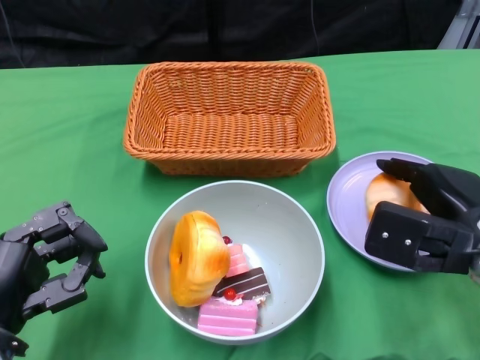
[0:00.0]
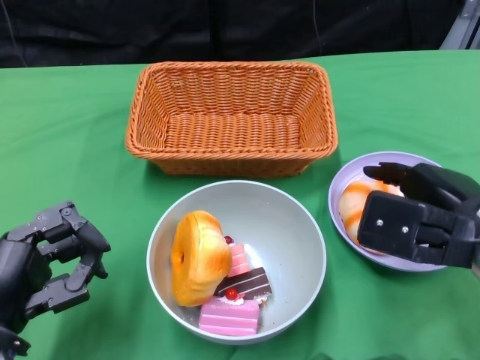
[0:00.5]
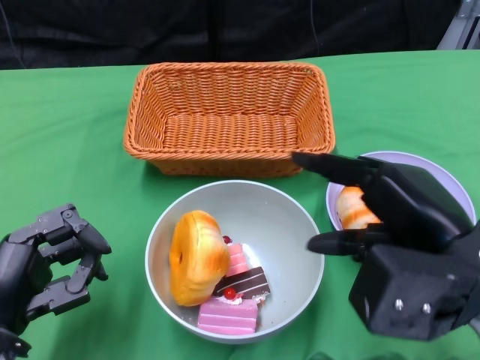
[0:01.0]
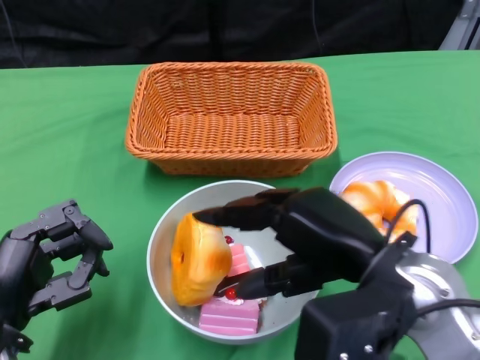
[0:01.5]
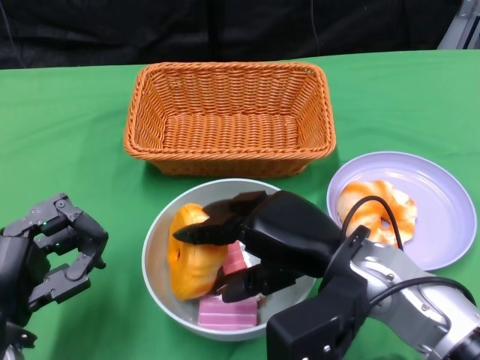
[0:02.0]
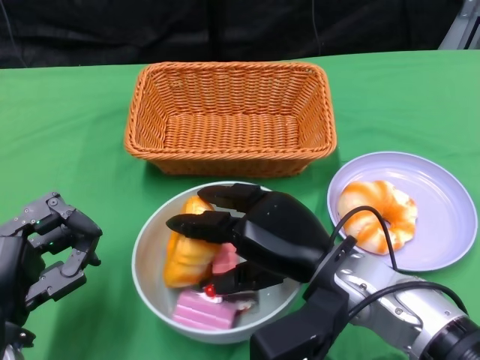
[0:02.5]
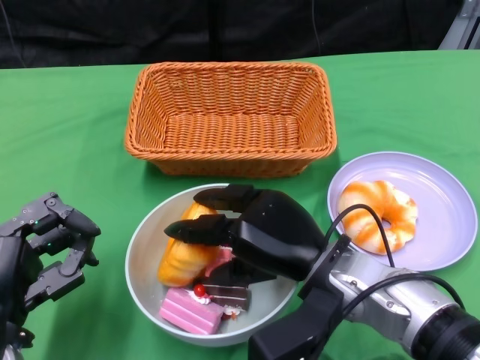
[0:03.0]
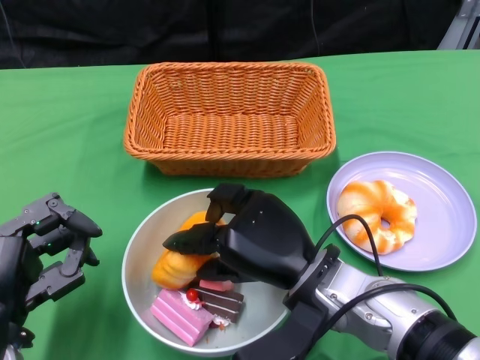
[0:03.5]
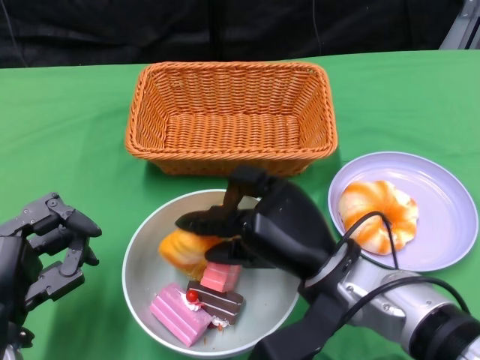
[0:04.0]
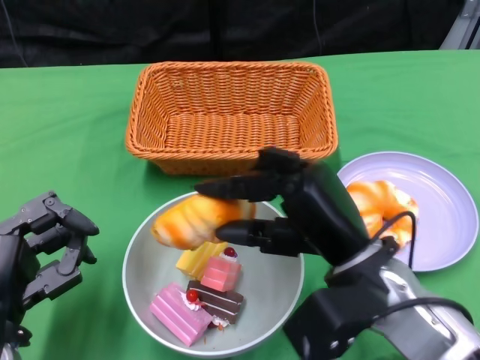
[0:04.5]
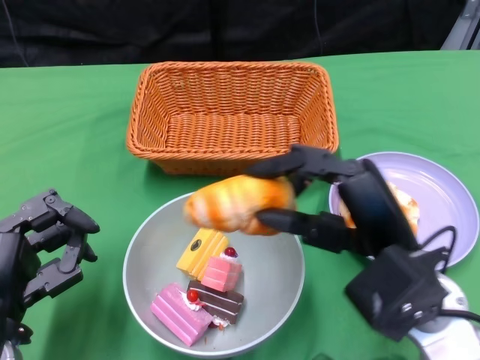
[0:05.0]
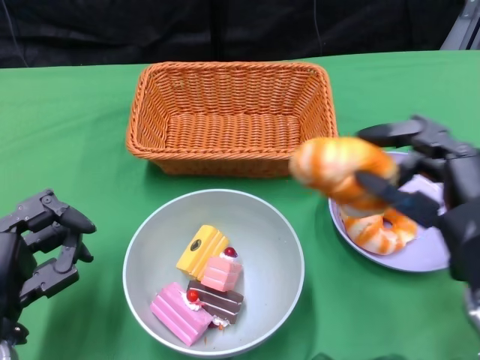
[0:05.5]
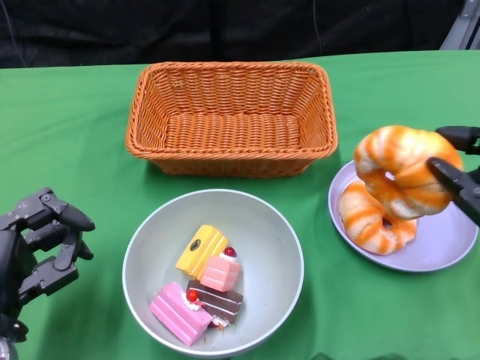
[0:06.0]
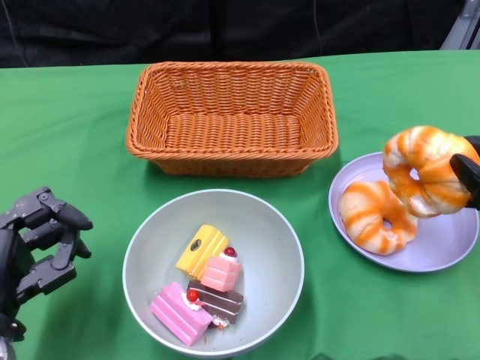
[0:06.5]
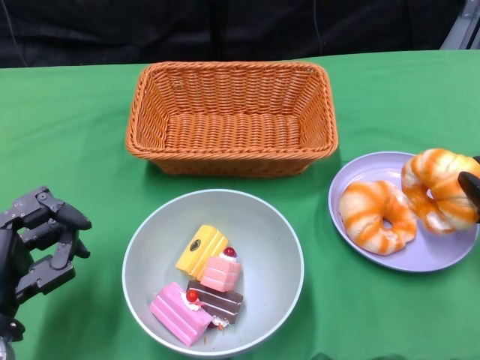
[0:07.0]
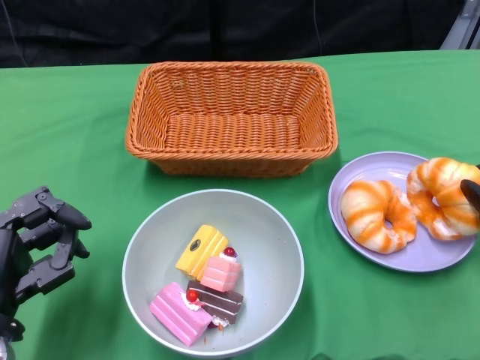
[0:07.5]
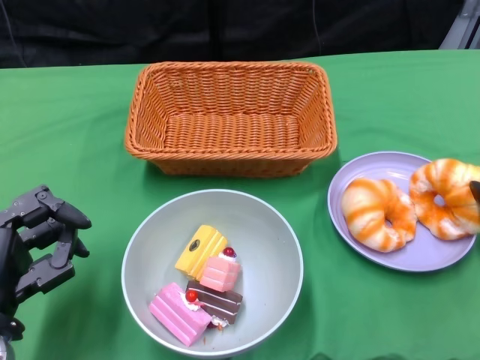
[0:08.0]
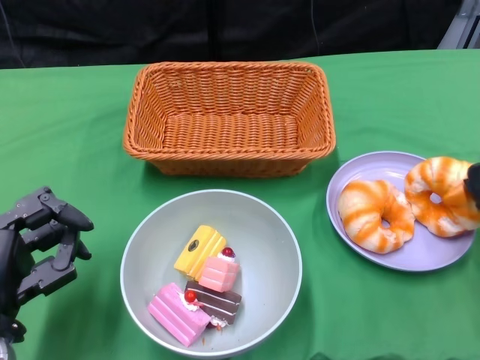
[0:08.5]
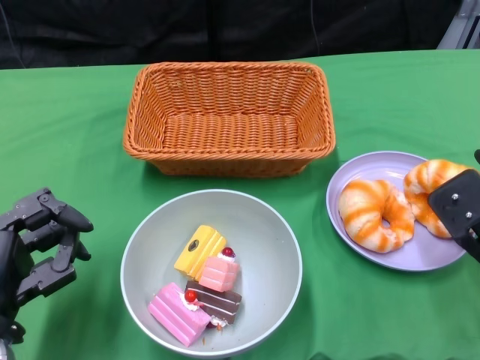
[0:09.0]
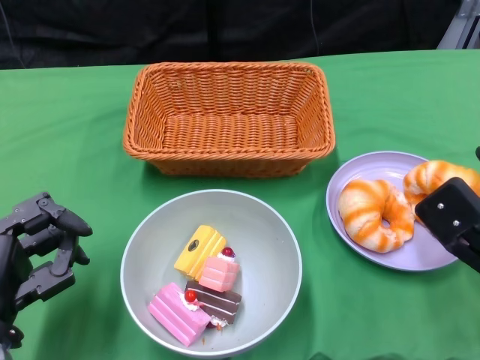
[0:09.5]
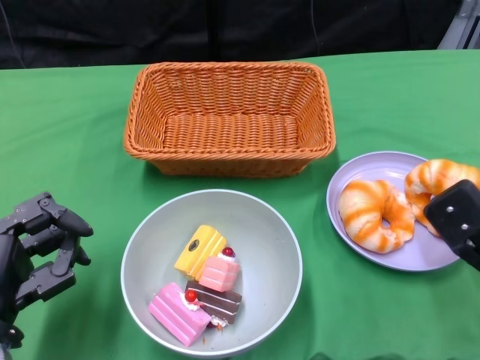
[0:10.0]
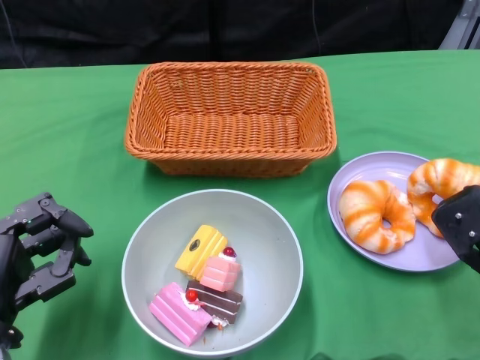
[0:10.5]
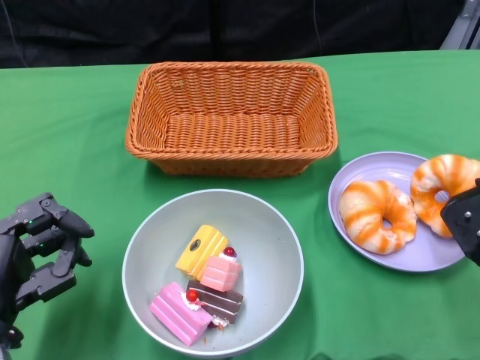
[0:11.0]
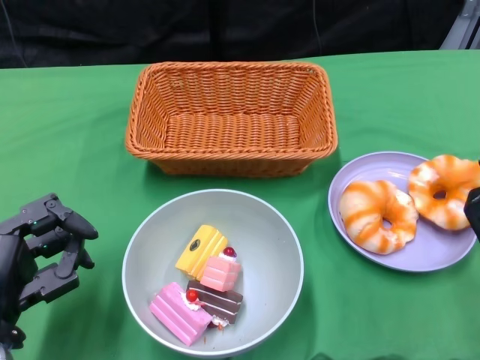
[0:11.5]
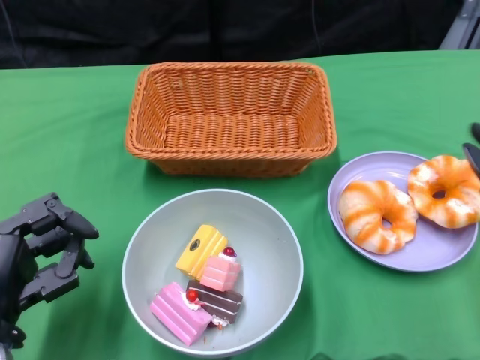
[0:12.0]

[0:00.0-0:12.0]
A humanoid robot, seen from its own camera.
Step, 0:00.0 to 0:11.5: Pick up the bread with the right gripper and place it on the plate.
0:00.0 to 0:02.0: The right hand is displaced to the left by some 10 cm.
0:04.0 to 0:06.0: The right hand moves to the right, some 15 cm.
0:06.0 to 0:08.0: The right hand is displaced forward and downward by approximately 10 cm.
0:10.0 to 0:12.0: The right hand changes place by roughly 5 cm.

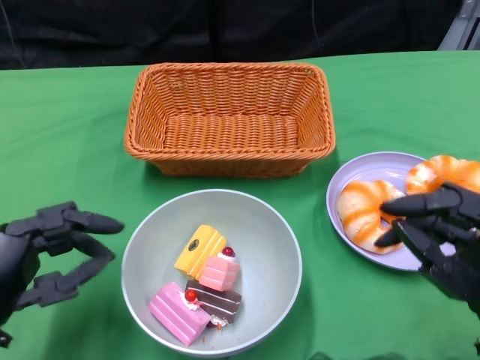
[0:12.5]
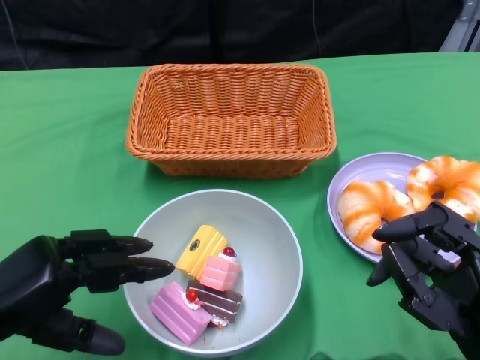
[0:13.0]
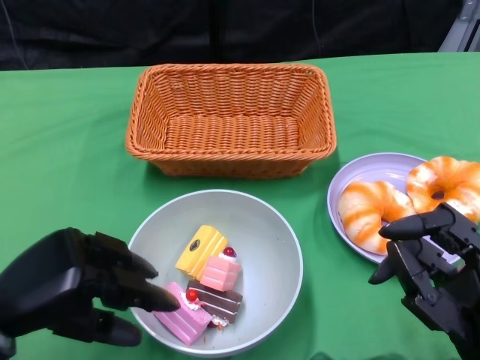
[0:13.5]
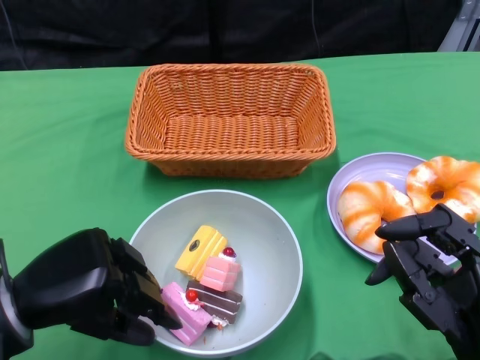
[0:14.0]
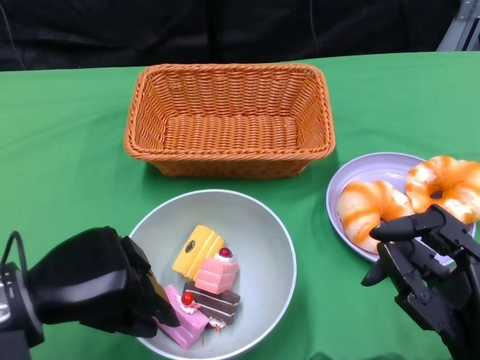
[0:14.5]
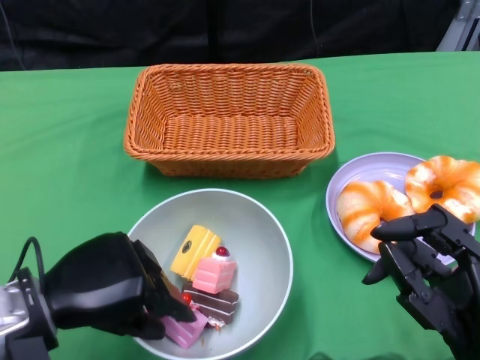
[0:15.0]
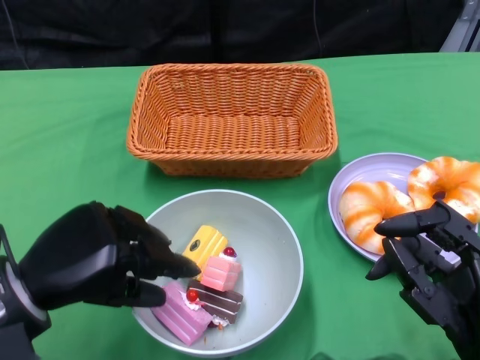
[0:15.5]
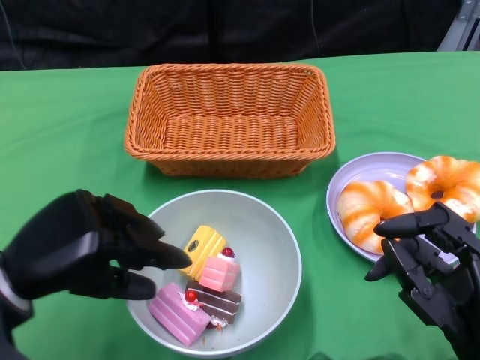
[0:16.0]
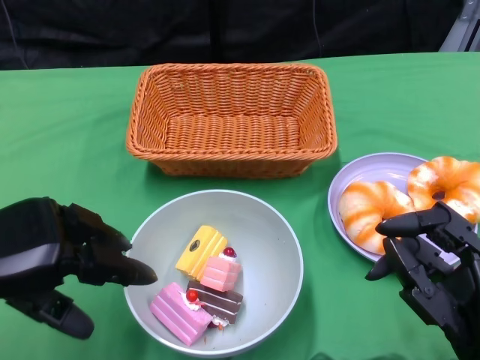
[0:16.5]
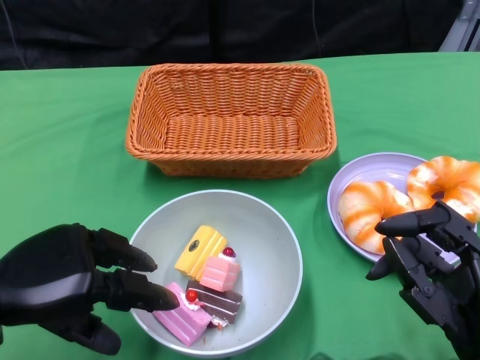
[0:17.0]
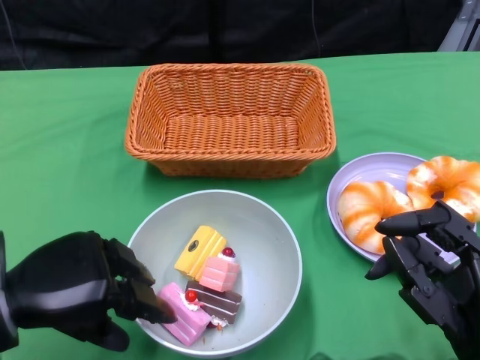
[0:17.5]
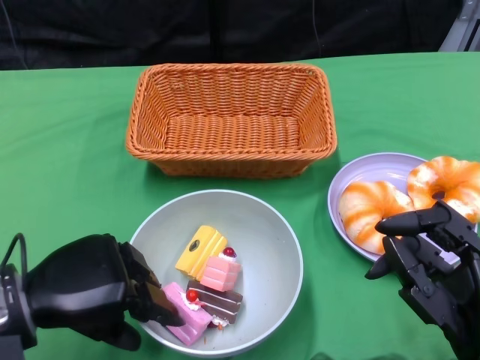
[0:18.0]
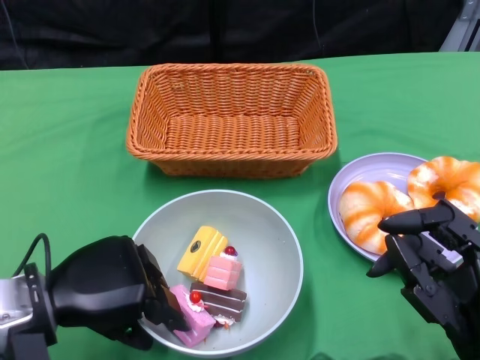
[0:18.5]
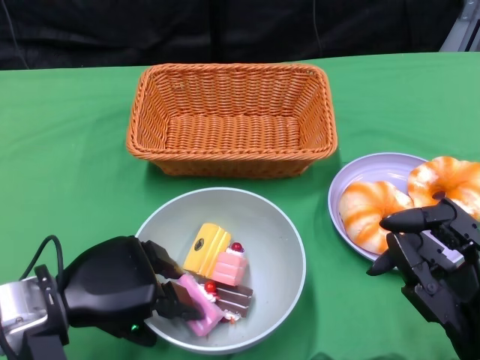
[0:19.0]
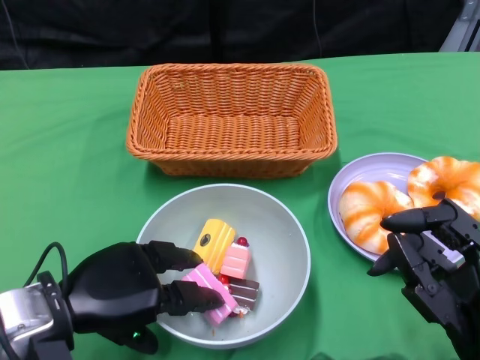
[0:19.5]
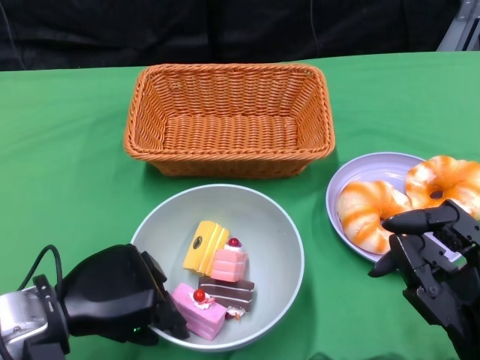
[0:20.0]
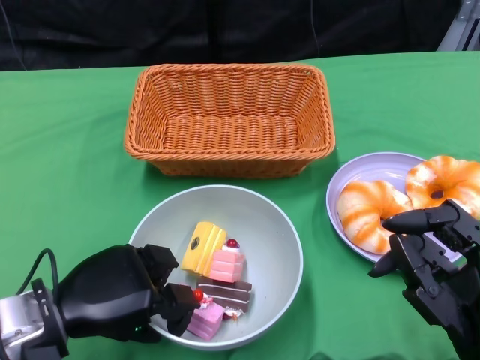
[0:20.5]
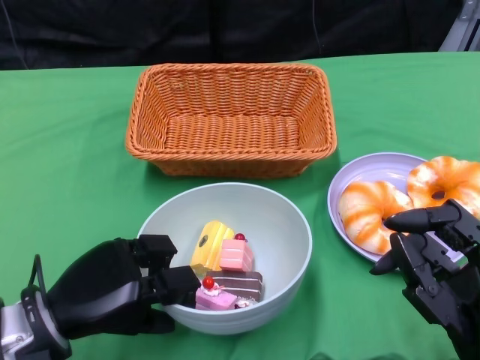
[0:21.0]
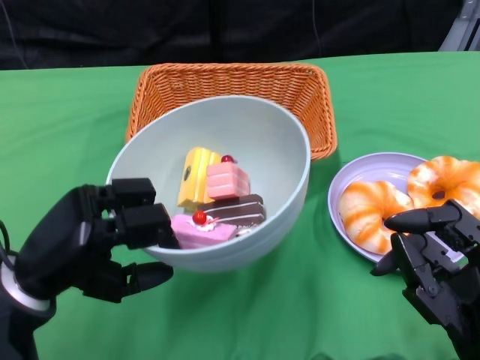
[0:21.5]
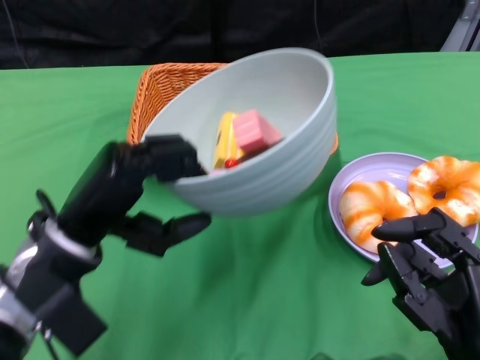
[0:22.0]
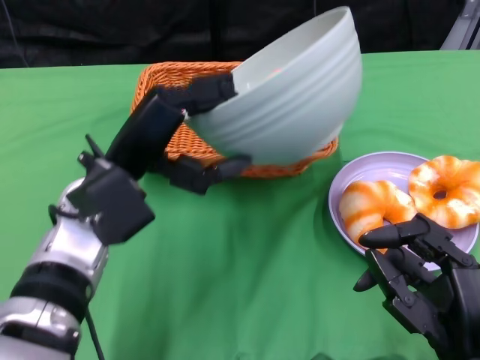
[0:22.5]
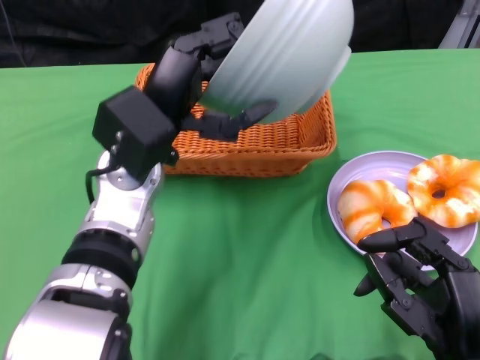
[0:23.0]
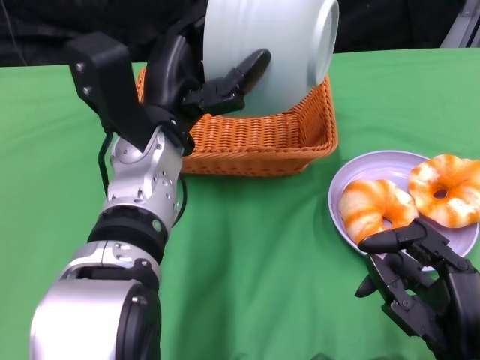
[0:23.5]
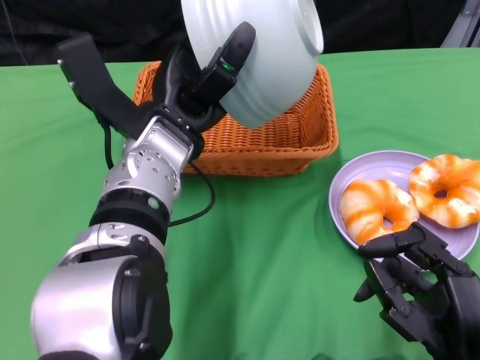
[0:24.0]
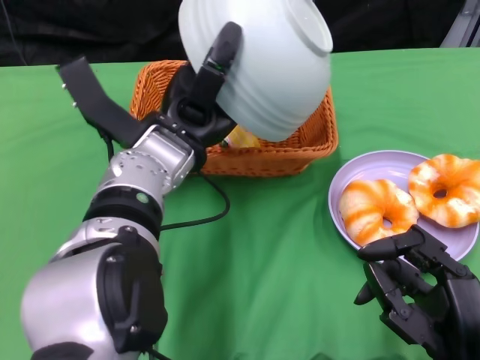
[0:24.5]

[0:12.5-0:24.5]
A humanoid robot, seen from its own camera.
Step, 0:12.5 to 0:20.0: Grasp the bowl with the left gripper.
0:12.5 to 0:14.5: The left hand moves approximately 5 cm.
0:14.5 to 0:16.5: The left hand shifts by some 5 cm.
0:16.5 to 0:18.5: The left hand shifts approximately 10 cm to the right and downward.
0:18.5 to 0:20.5: The hands move only a little.
0:20.5 to 0:22.5: The left hand moves upward, forward and to the right, approximately 15 cm.
0:22.5 to 0:24.5: The left hand travels to the right by roughly 5 cm.

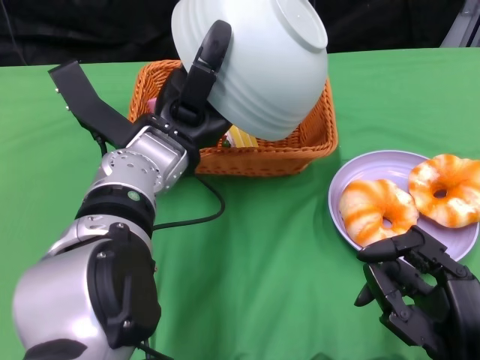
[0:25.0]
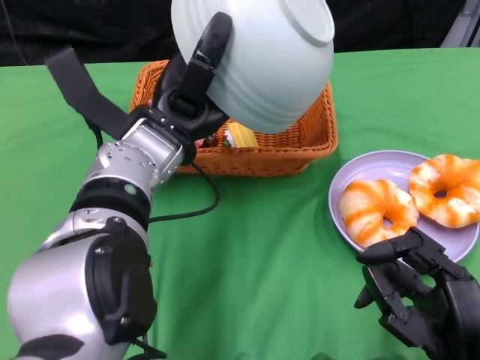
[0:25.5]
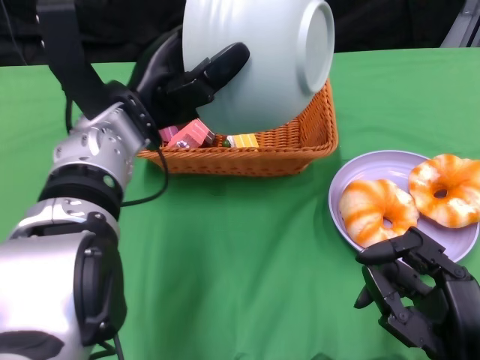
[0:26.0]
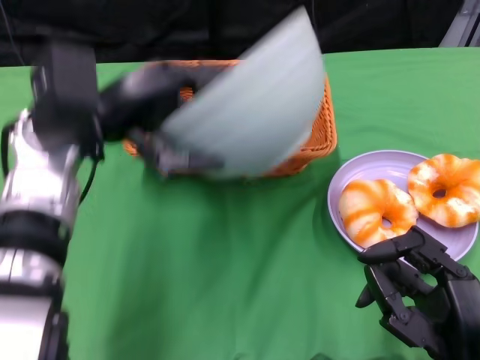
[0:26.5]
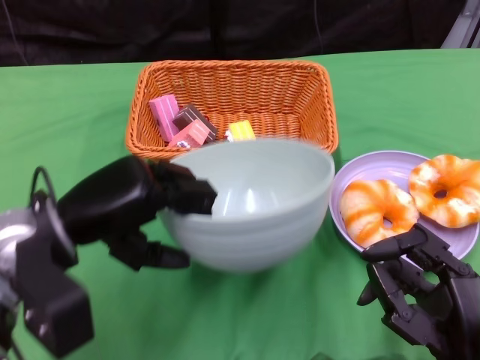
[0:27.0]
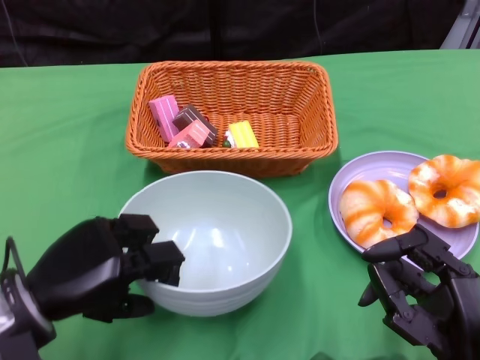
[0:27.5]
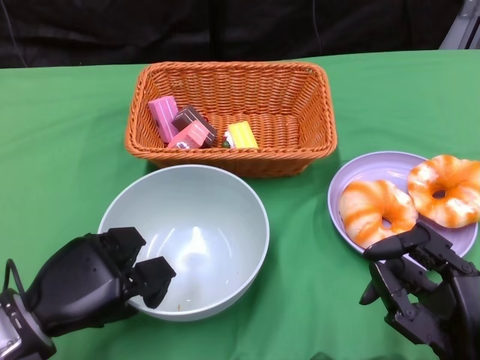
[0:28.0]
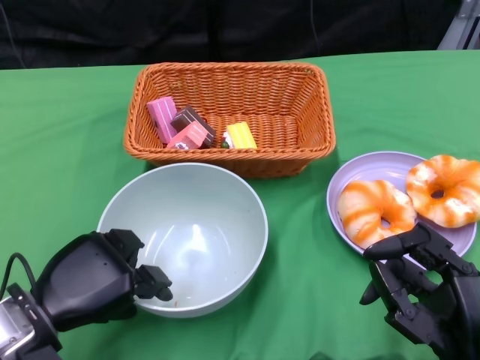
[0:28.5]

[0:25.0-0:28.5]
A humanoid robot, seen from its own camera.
0:25.0 to 0:27.0: The left hand is displaced to the left and backward by about 15 cm.
0:27.0 to 0:28.5: The left hand travels downward and backward by approximately 10 cm.
